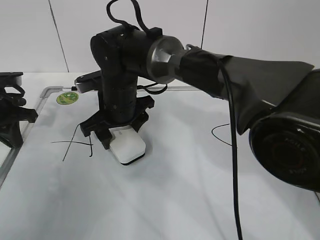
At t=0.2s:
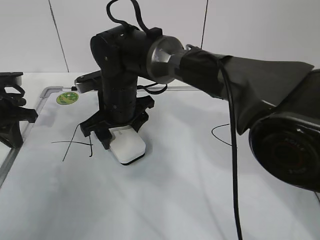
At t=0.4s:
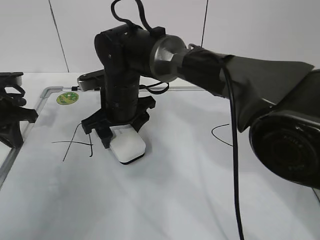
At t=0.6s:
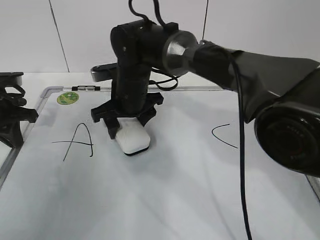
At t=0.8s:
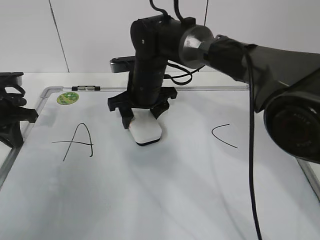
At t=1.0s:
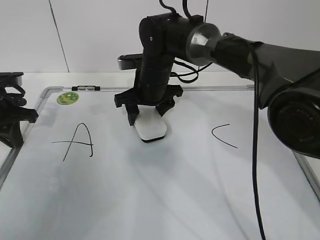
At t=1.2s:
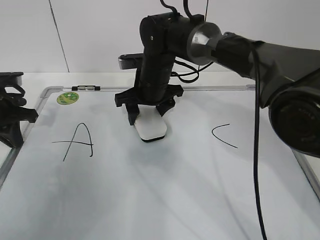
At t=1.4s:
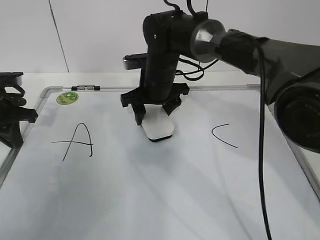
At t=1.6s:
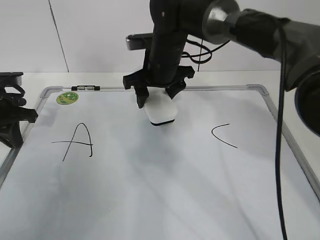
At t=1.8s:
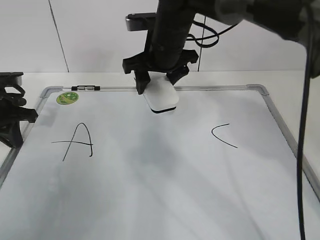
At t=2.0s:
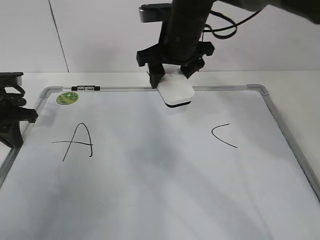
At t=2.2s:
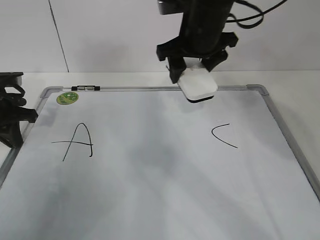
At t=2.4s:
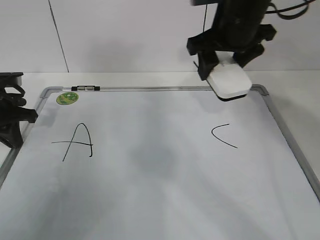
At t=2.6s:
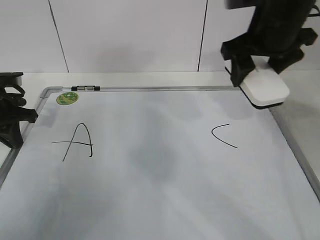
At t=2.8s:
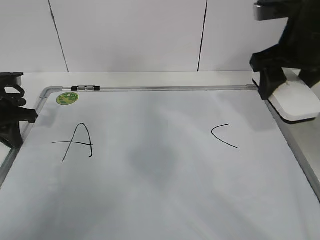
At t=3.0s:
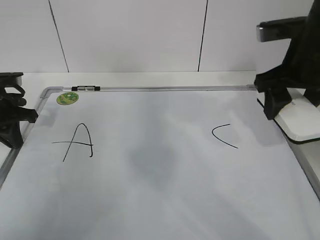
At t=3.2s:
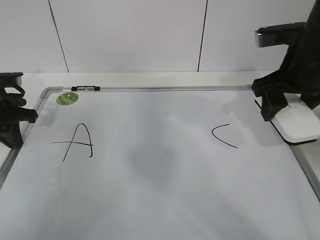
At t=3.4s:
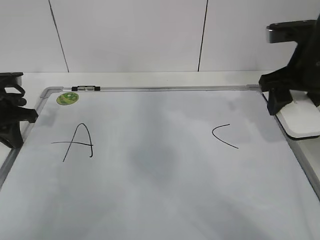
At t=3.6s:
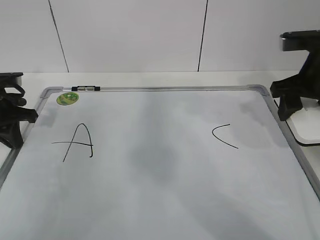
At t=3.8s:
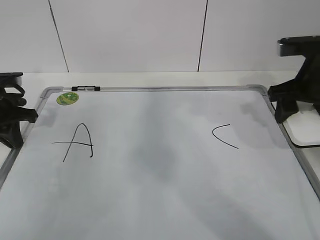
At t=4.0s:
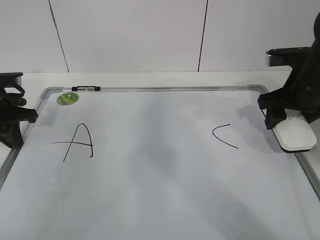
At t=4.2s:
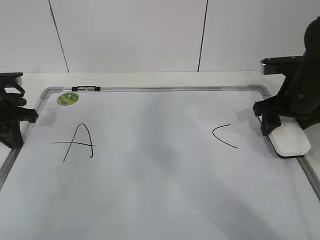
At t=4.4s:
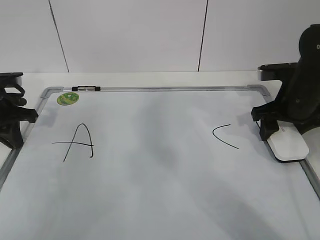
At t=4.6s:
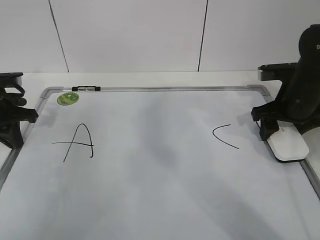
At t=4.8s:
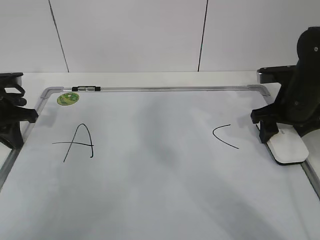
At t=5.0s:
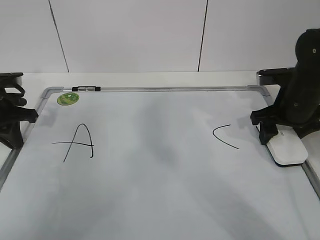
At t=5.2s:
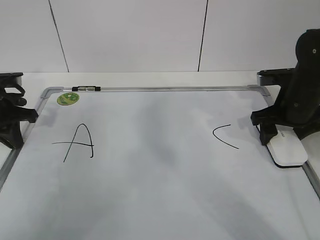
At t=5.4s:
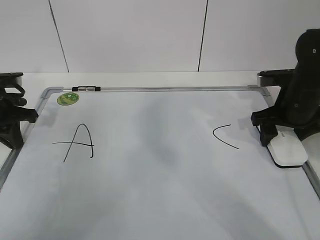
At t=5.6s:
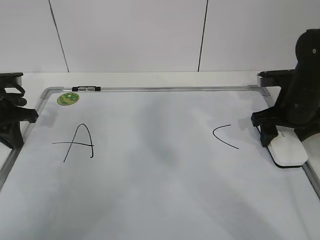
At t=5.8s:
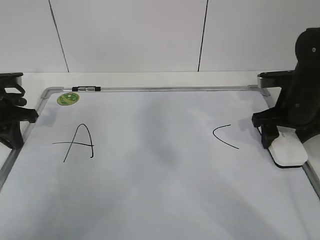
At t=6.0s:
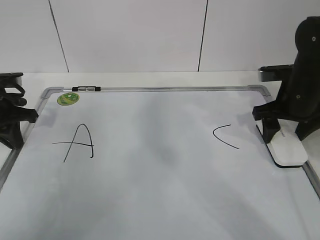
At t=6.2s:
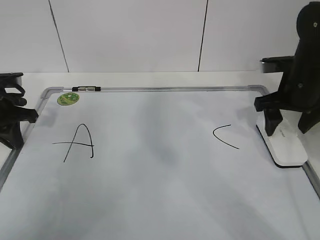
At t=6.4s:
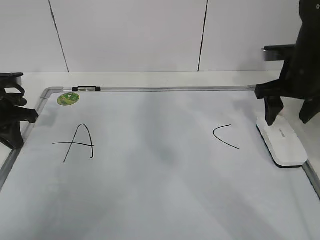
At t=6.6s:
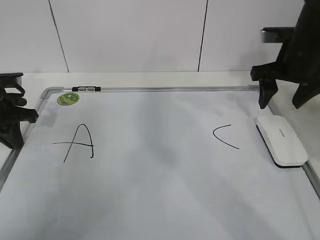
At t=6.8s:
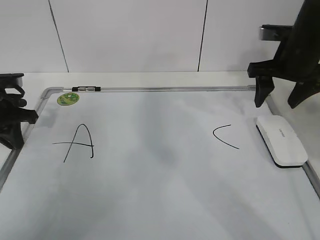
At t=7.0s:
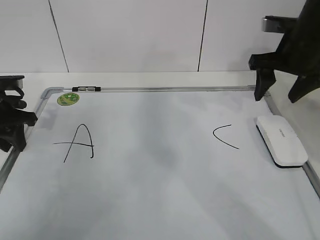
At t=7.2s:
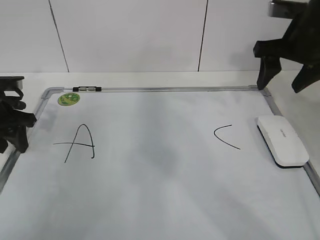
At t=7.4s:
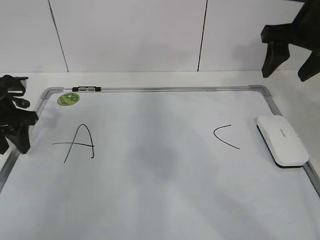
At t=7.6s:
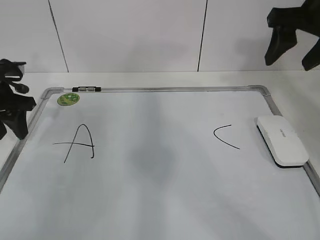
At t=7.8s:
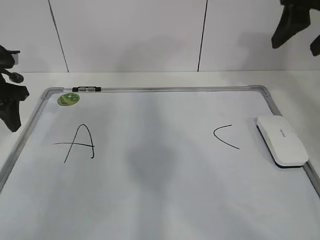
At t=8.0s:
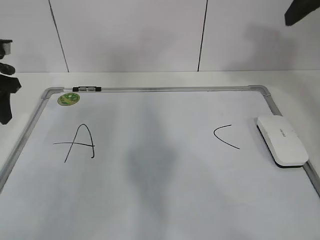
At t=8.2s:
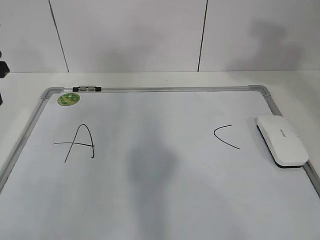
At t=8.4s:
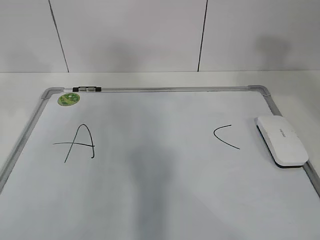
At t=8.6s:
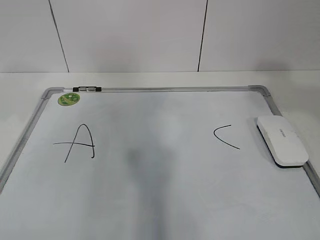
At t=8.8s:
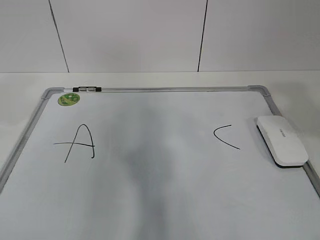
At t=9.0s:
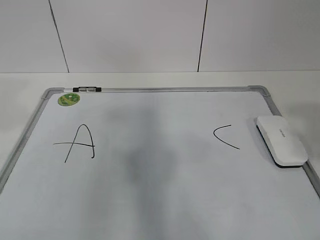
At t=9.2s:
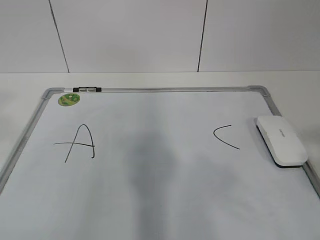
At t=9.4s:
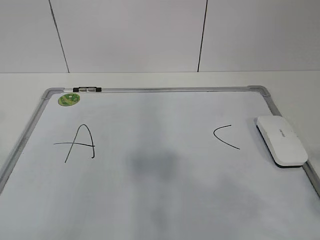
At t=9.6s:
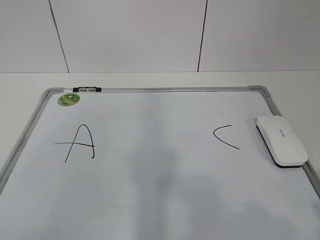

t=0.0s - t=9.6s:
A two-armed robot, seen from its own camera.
Task of the whole recording: pick up the eraser on the blackboard and erase the letter "B".
t=0.0s - t=1.6s: The right gripper shifts some 10 cm to the right and forward.
t=1.6s - t=3.2s: The right gripper goes approximately 20 cm to the right and backward.
t=3.2s - t=4.8s: The right gripper goes about 10 cm downward.
t=4.8s - t=6.4s: The grippers make only small movements.
t=6.4s - t=8.0s: The right gripper heads upward and backward, covering roughly 20 cm, while the left gripper goes approximately 10 cm upward, and opens its fingers.
t=8.0s - t=9.6s: Both grippers travel together backward, some 35 cm.

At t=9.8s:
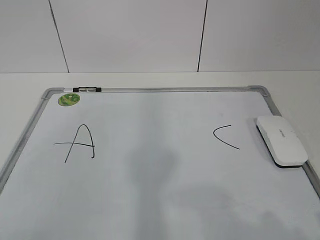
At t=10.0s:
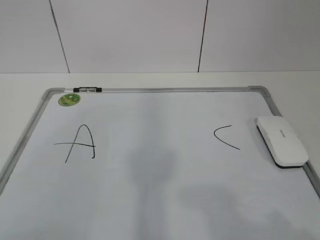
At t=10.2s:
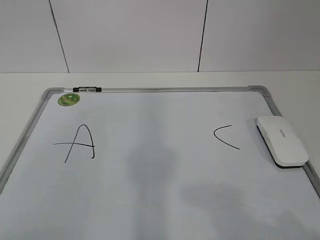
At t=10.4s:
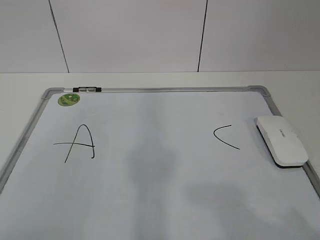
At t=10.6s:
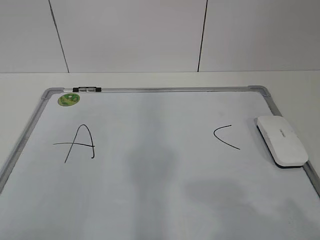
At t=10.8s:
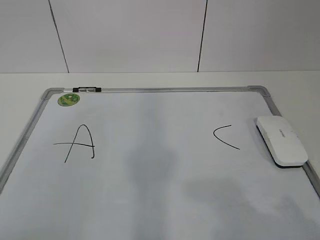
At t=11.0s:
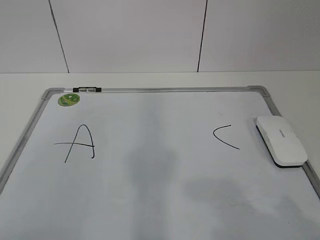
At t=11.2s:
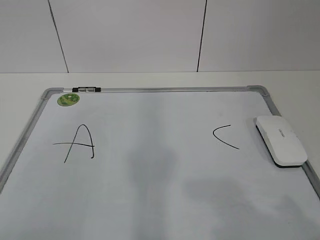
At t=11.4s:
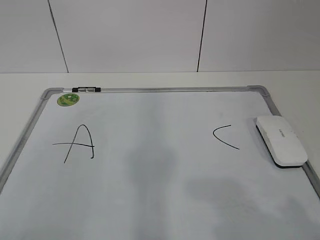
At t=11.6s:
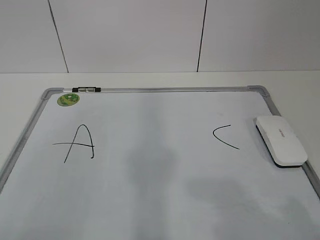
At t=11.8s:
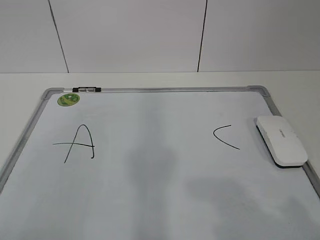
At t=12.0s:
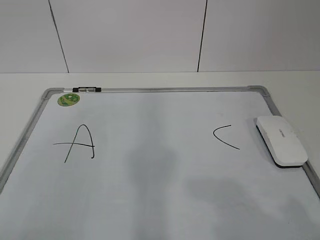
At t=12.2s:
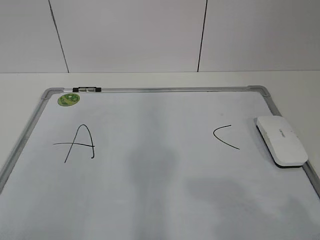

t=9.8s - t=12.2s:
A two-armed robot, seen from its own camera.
Task of the whole recording: pick up the eraser on the blackboard and erase the letter "B".
t=9.8s - t=11.0s: The grippers move only a little.
t=11.0s - t=12.2s: The two grippers keep their place.
